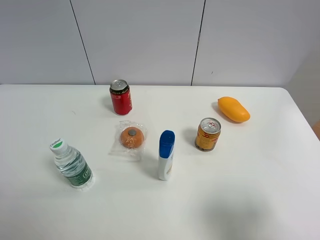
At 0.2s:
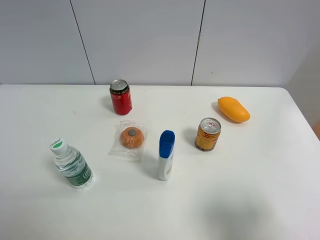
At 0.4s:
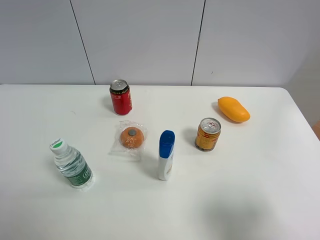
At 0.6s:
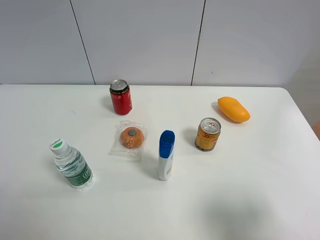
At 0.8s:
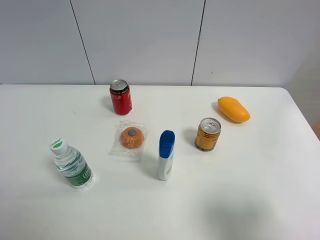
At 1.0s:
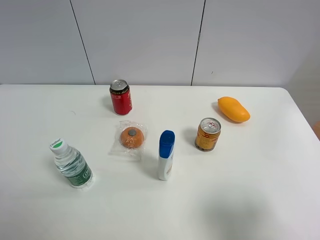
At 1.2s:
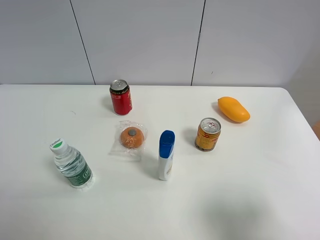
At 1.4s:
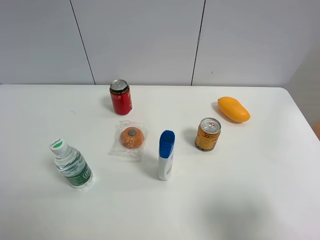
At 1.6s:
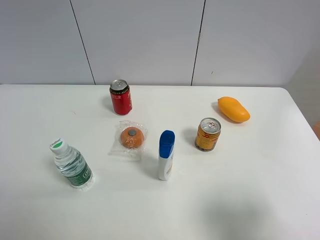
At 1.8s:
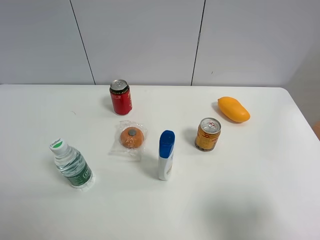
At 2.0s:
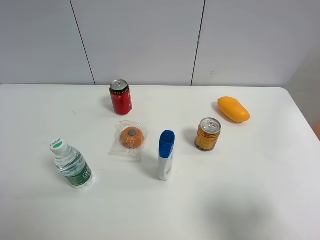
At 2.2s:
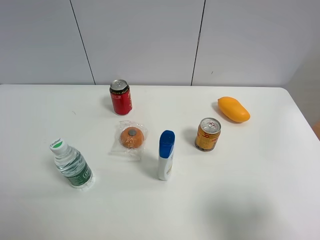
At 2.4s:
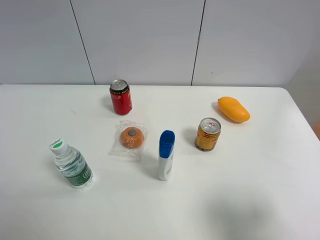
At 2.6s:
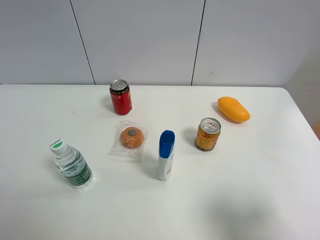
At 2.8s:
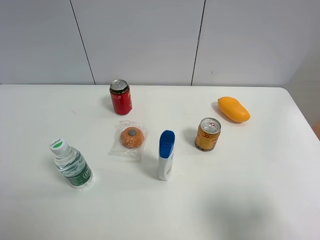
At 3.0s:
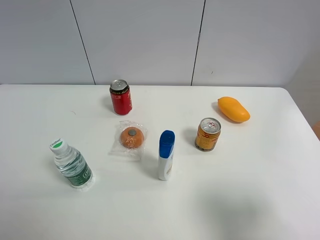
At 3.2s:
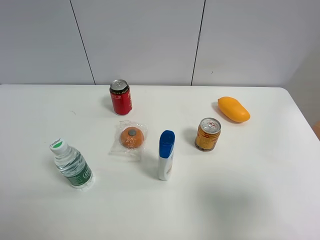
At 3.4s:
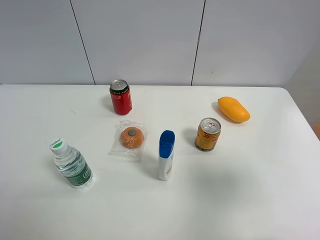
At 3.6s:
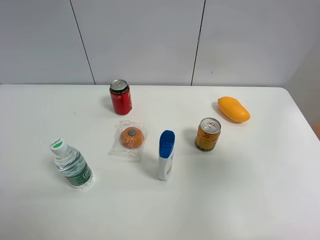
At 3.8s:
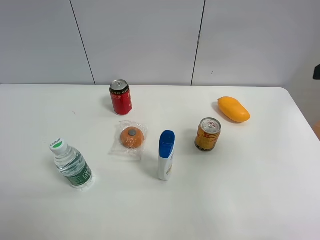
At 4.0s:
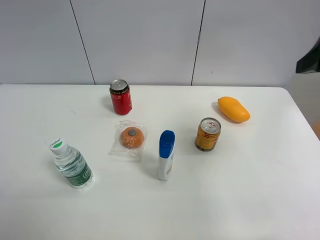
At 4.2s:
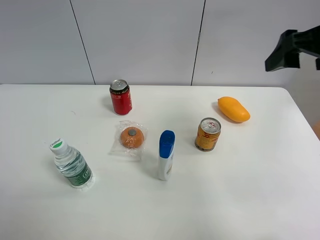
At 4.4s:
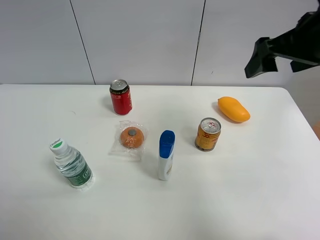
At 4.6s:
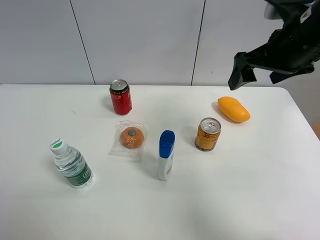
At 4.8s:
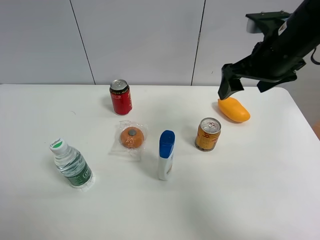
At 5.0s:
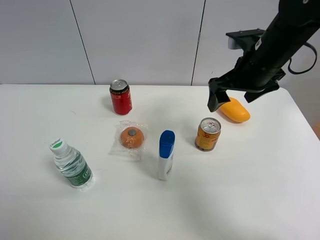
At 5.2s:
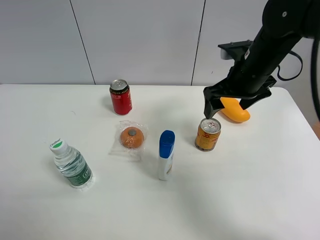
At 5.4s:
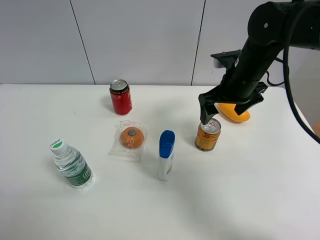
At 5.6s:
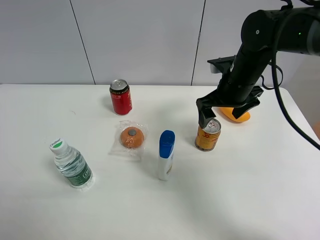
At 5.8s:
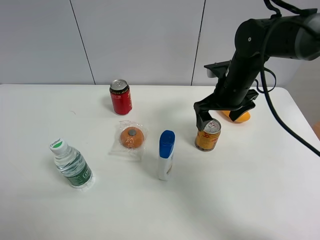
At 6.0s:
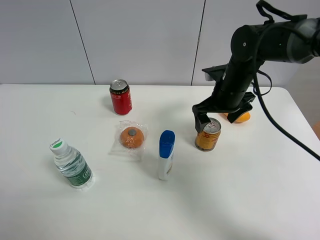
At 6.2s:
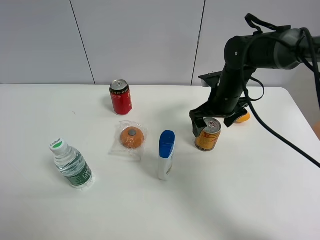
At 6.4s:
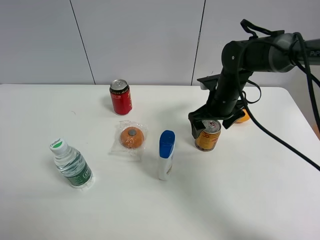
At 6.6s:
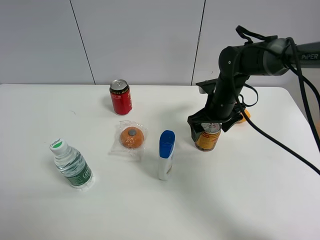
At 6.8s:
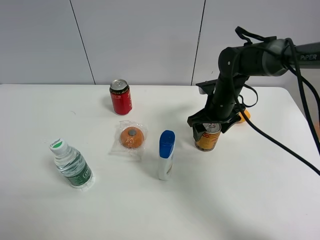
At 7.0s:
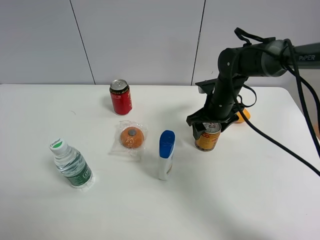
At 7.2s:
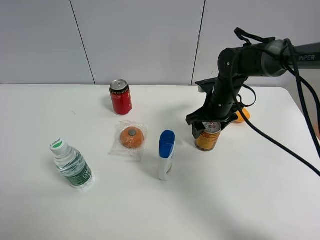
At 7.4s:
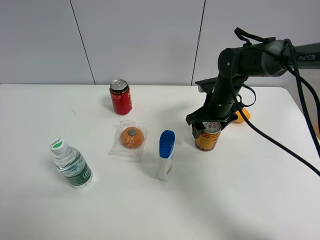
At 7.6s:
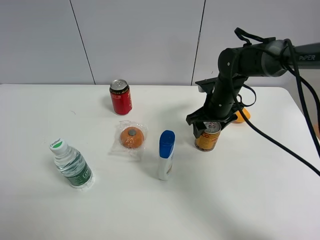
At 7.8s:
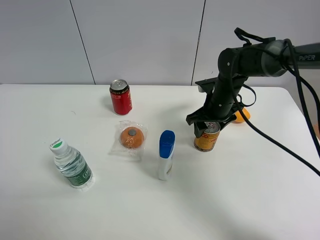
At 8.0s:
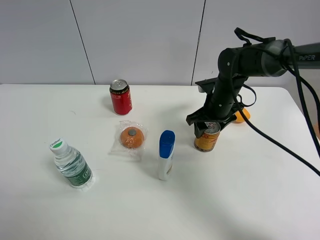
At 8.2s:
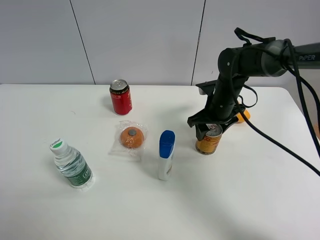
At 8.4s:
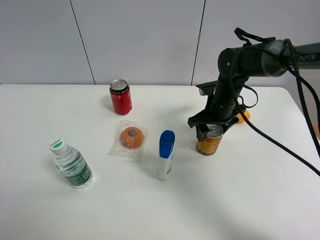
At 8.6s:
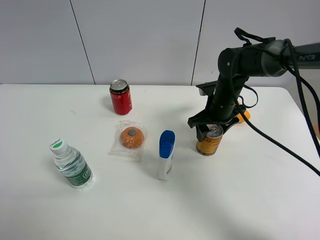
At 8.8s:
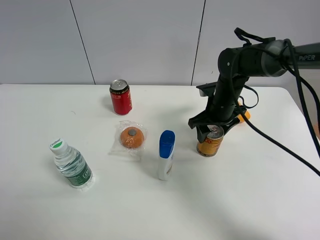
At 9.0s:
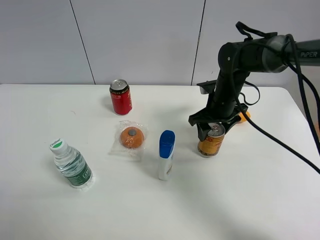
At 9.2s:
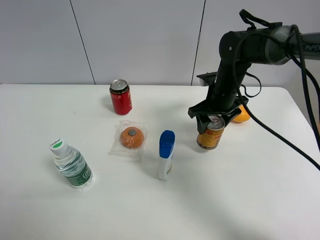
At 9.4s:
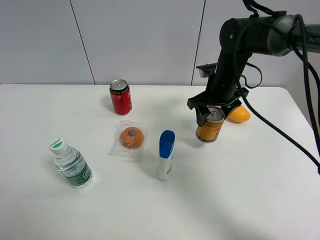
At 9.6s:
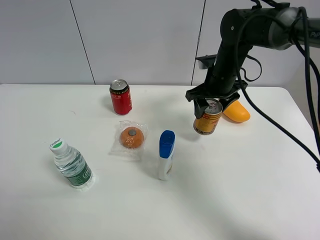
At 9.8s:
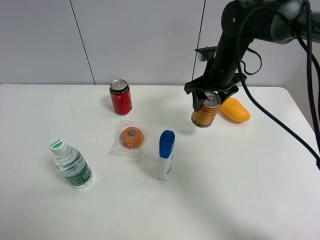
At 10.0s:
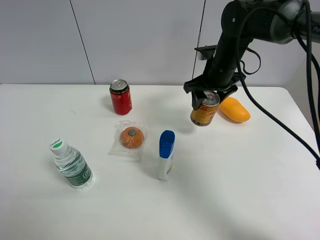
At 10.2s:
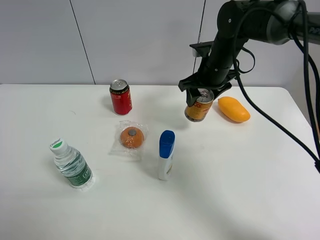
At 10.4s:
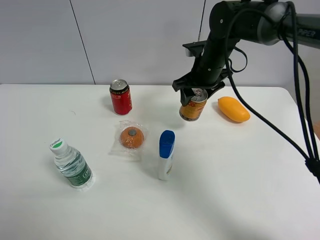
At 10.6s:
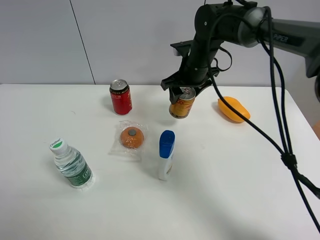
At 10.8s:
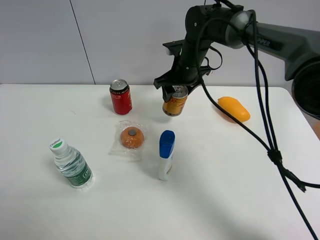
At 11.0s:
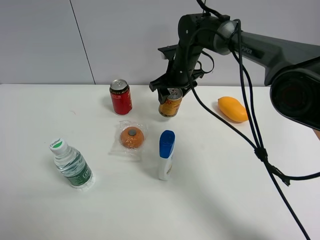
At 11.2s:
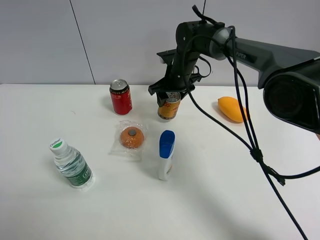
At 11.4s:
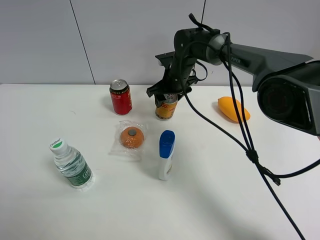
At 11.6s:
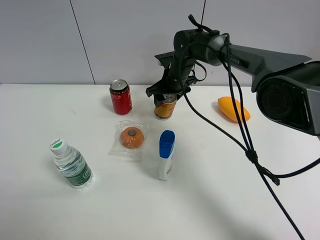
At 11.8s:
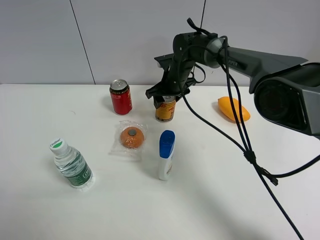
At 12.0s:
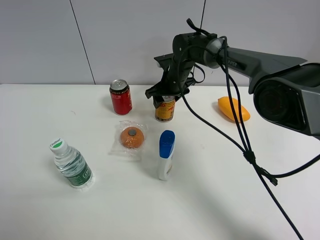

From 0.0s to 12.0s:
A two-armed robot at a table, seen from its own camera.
Task of the whole recording: the gripper move the object.
Step, from 0.0s to 7.8s: Grasp the red bull with the right gripper.
From 0.0s to 1.6s: Both grippers stay put.
From 3.0s to 4.4s: The right gripper goes approximately 25 cm forward.
From 4.4s to 6.0s: The right gripper heads downward, forward and to the left, covering about 20 cm.
From 6.0s to 7.6s: The right gripper moves downward, some 5 cm, and closes up.
From 7.6s to 9.0s: The grippers make only small movements.
From 9.0s to 10.4s: The right gripper shifts approximately 5 cm upward.
From 10.4s to 12.0s: The right gripper goes some 10 cm downward, to the left and forward.

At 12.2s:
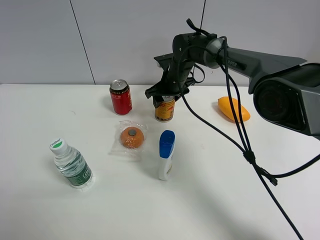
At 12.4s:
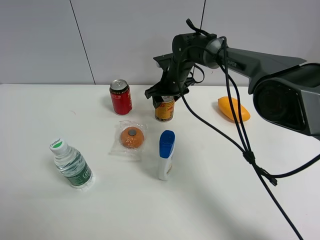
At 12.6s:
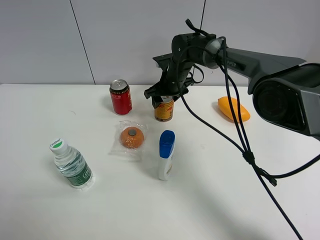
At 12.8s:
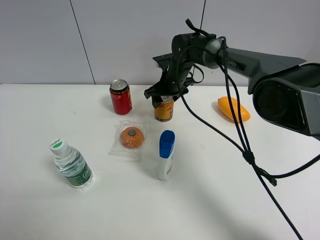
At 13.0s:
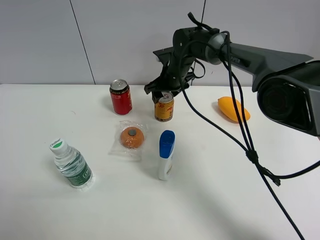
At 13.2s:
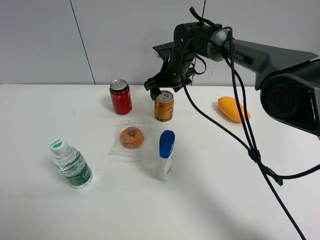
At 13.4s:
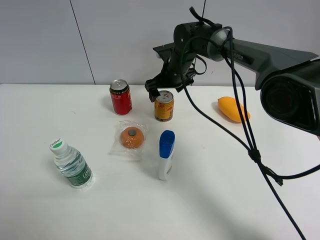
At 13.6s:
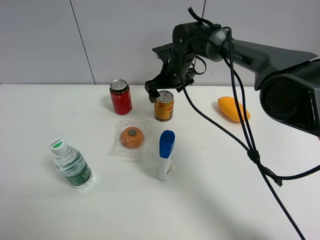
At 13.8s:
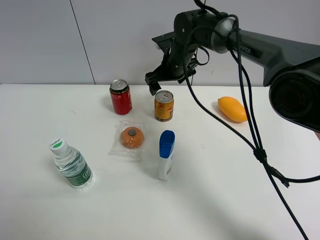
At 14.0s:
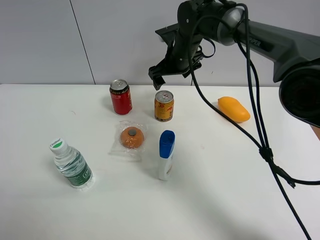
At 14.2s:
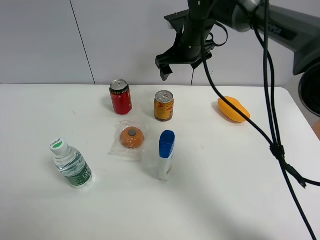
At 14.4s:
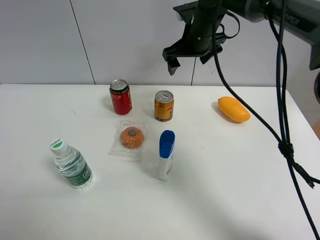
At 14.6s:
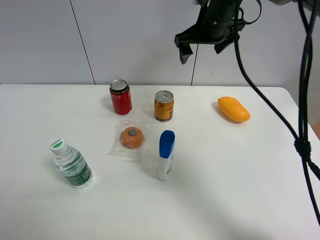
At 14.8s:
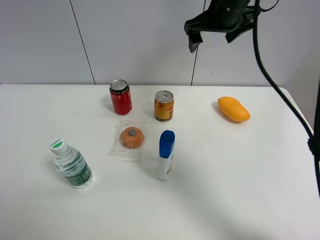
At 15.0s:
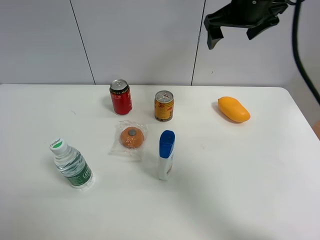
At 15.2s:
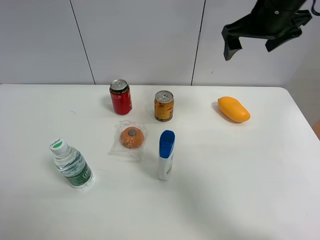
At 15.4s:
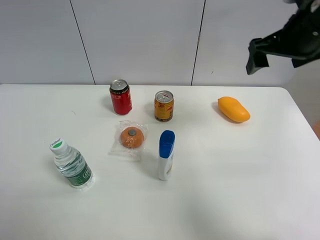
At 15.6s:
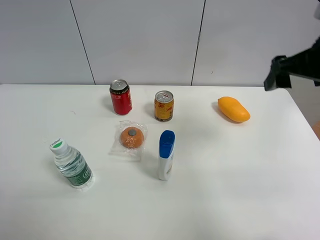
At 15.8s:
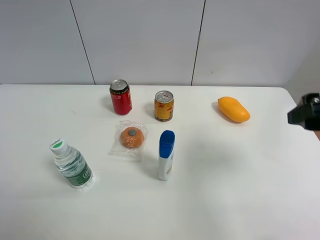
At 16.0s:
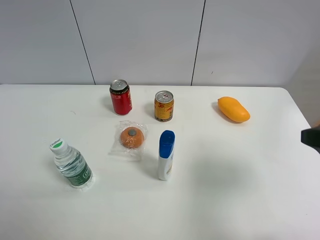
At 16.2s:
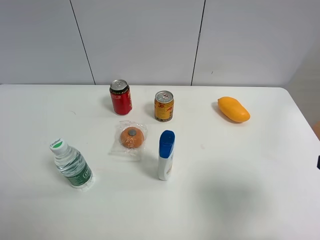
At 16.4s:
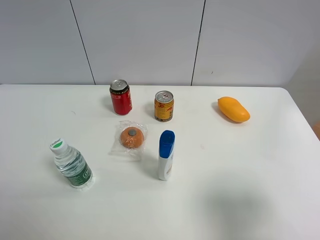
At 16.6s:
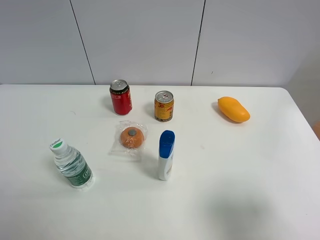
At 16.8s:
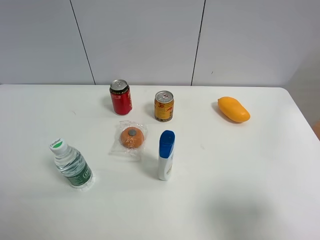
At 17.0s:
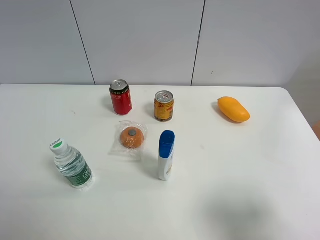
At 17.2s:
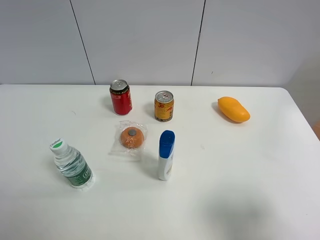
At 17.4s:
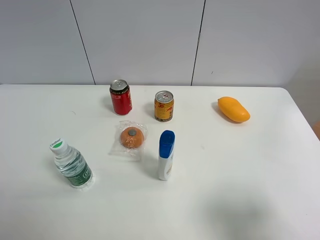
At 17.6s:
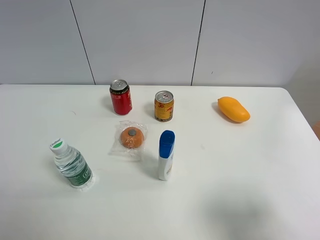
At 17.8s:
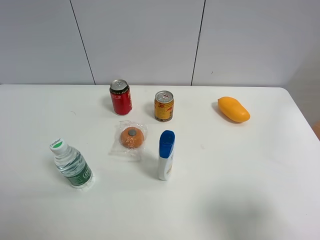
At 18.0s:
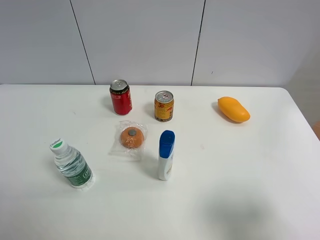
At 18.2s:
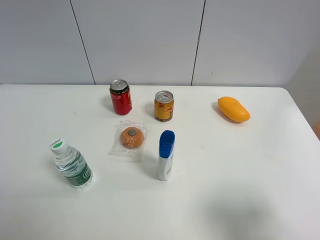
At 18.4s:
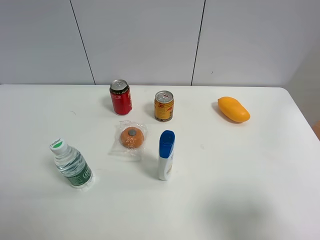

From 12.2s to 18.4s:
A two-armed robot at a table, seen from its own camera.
Task of the whole recording: the gripper move the object.
From 12.2s to 13.8s: The right gripper is displaced upward by some 5 cm, and opens its fingers.
From 13.8s to 15.4s: The right gripper travels to the right, backward and upward by some 30 cm.
From 15.4s to 16.8s: The right gripper shifts roughly 30 cm backward.
From 16.8s to 18.4s: Neither gripper changes place.

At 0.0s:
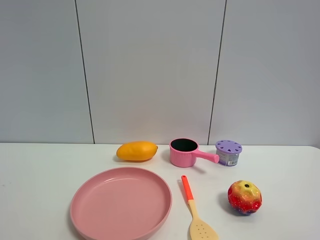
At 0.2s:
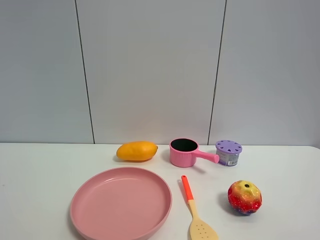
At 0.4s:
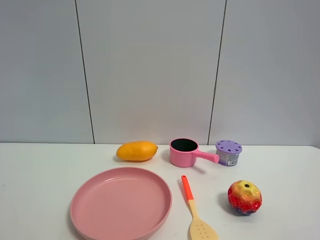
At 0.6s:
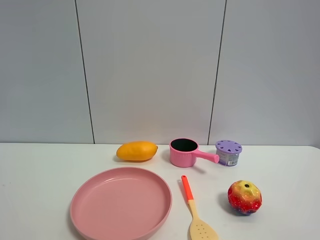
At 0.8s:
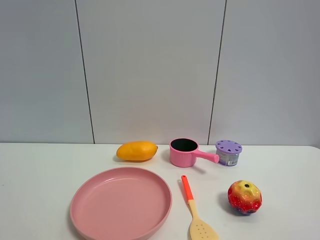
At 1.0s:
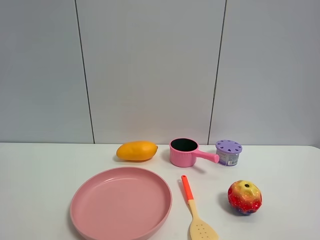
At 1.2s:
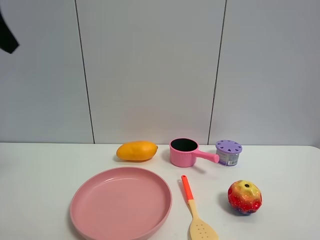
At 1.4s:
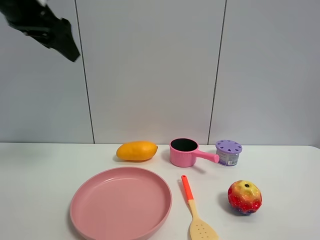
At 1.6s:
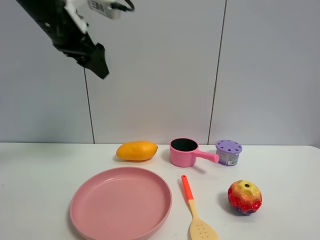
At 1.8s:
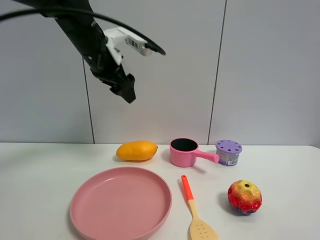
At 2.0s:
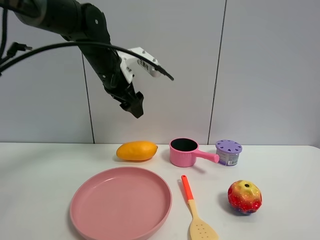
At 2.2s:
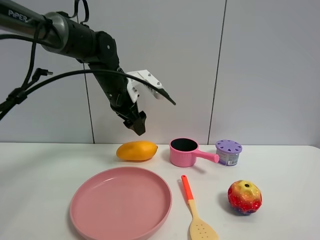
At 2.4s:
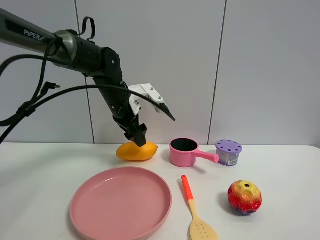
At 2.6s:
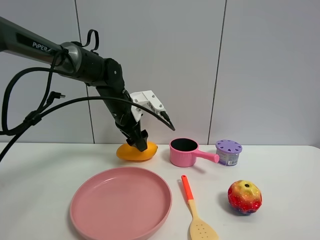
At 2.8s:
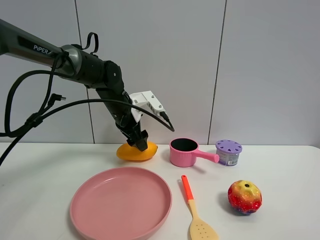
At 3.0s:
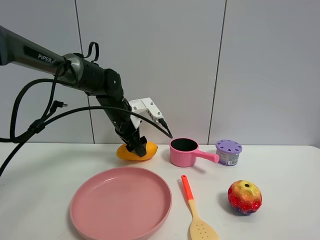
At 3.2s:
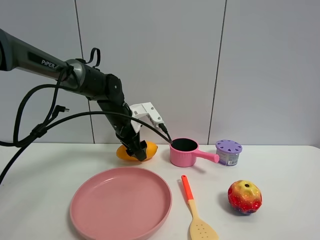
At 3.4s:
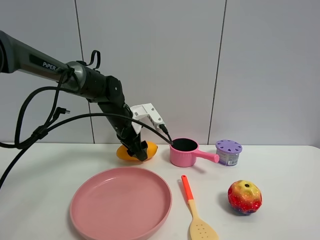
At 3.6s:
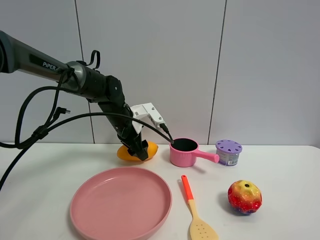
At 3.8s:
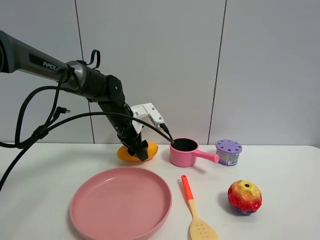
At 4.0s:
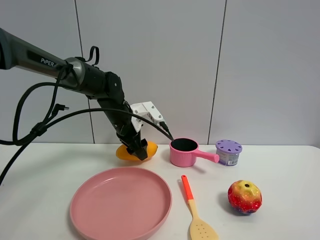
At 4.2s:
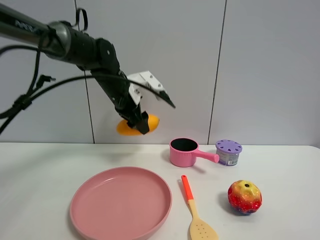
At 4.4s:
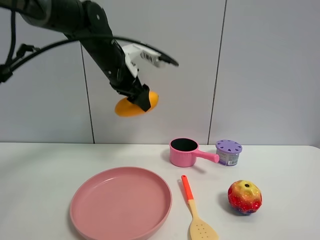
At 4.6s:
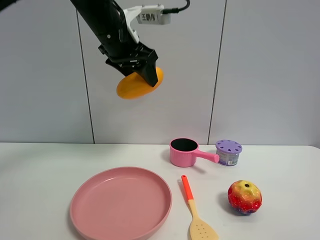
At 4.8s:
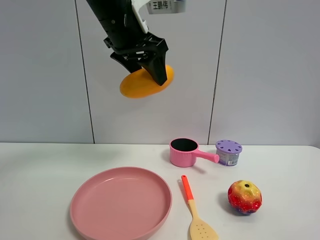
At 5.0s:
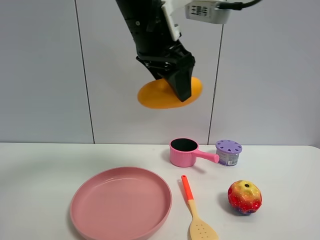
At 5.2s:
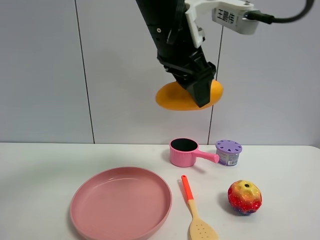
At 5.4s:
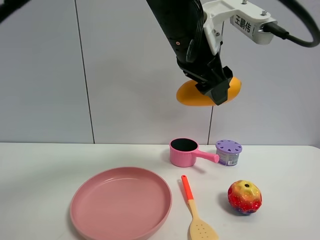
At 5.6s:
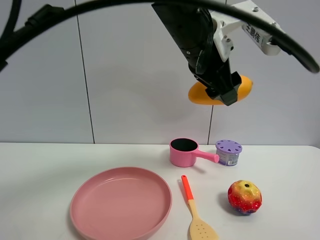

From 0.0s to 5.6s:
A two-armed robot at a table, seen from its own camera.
Task of the whole recording: the gripper move the object.
Step, from 0.0s to 3.6s: Grasp the mango with the left gripper.
From 0.0s to 1.4s: The left gripper moves forward, roughly 35 cm, and closes up.
From 1.4s to 2.8s: The left gripper travels downward, forward and to the right by approximately 25 cm, and opens.
From 2.8s to 4.2s: The left gripper heads upward, covering about 5 cm, and closes its fingers.
From 4.2s to 5.6s: The left gripper heads to the right, backward and upward, covering approximately 25 cm.
